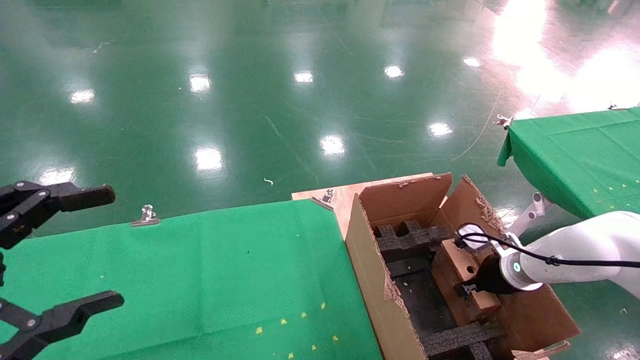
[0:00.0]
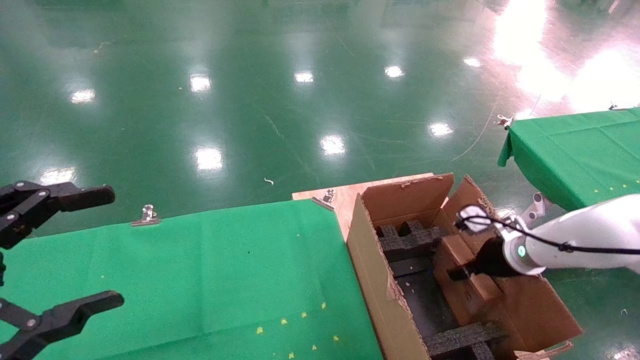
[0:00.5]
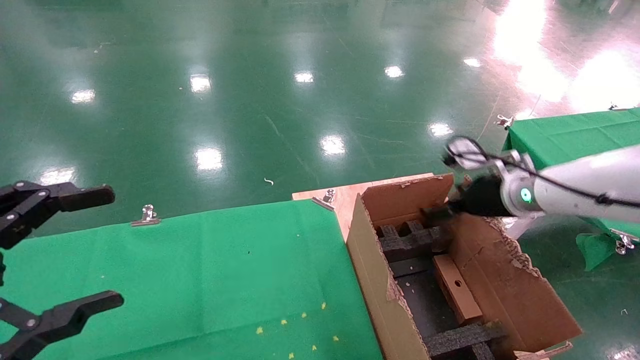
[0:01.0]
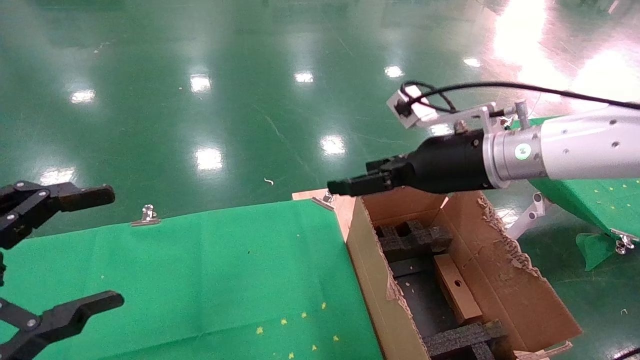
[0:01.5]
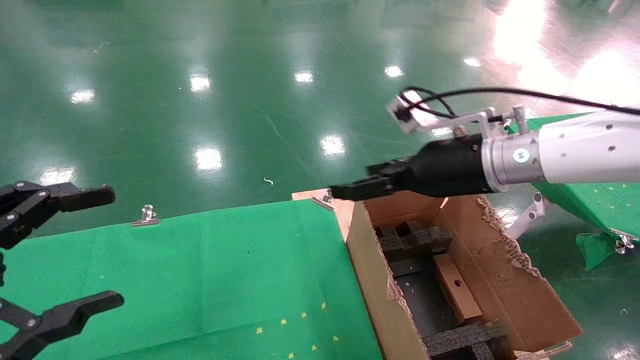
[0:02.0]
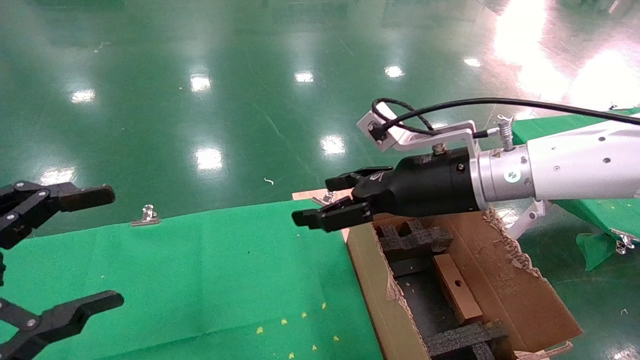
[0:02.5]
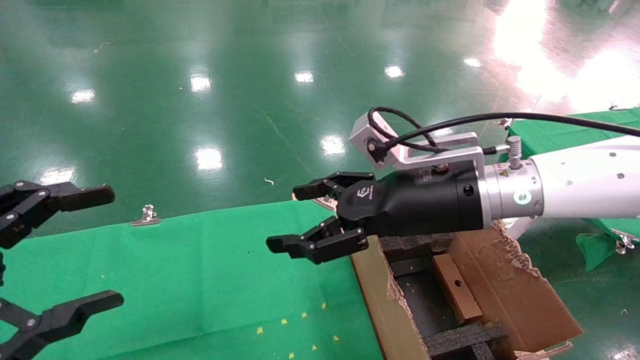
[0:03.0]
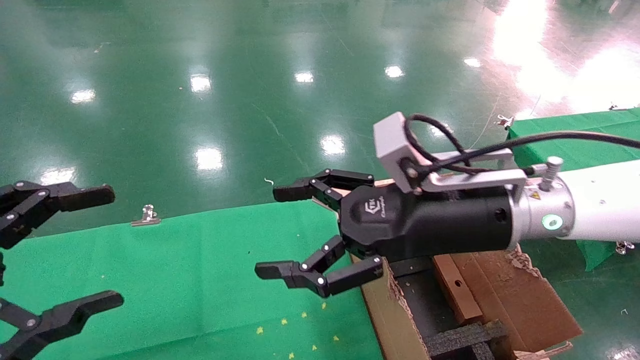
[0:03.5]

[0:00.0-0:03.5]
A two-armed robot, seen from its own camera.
Task of the whole recording: using a robotic arm to pick up a cardboard box and palace it the carton.
0:00.0 to 0:02.0: The right gripper heads upward and to the left, covering some 25 cm, and opens.
0:02.0 to 0:03.5: The right gripper is displaced backward by roughly 10 cm.
